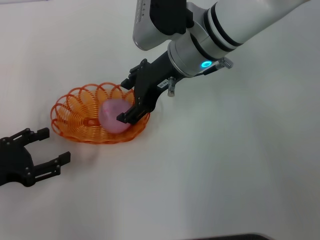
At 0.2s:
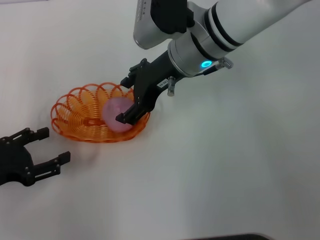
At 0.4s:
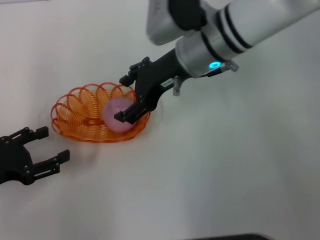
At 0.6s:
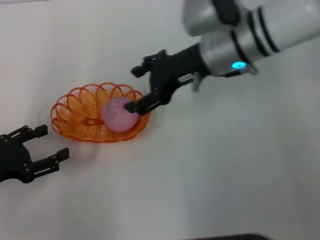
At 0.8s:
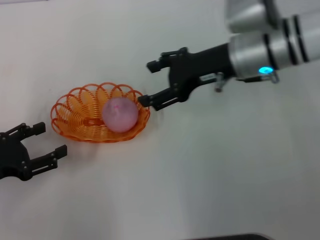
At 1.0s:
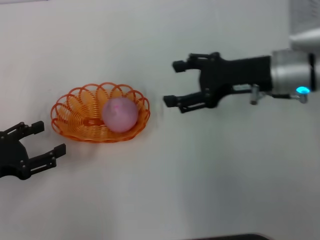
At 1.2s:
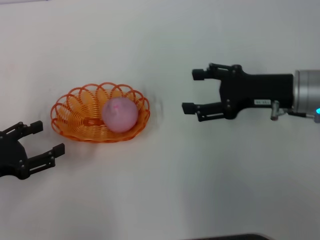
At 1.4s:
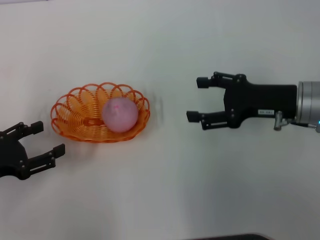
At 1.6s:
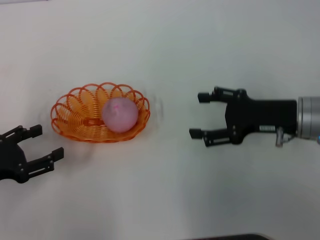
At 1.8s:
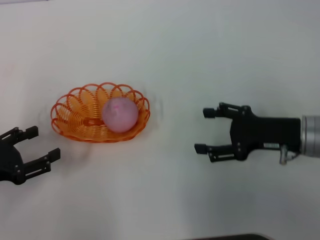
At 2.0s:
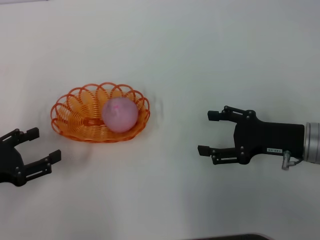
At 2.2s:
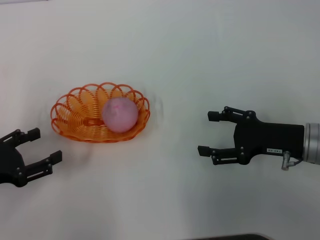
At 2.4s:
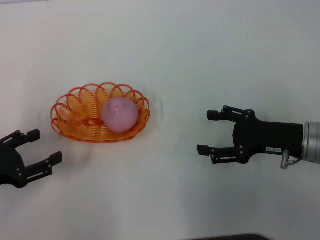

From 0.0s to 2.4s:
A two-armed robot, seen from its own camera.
From 0.0s to 1.2s: The right gripper travels to the right and backward by roughly 20 cm.
From 1.2s to 2.4s: The right gripper goes approximately 10 cm downward and backward.

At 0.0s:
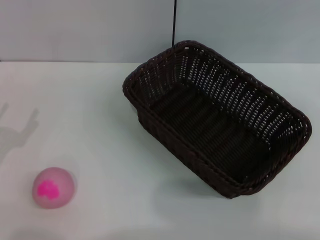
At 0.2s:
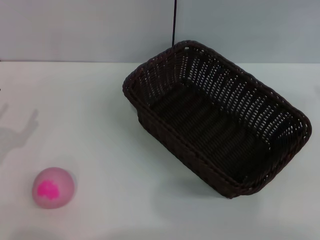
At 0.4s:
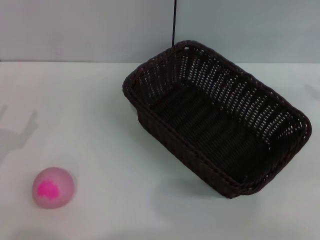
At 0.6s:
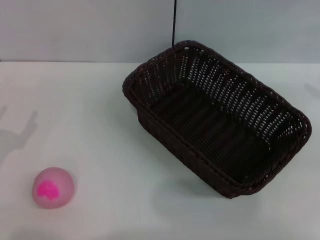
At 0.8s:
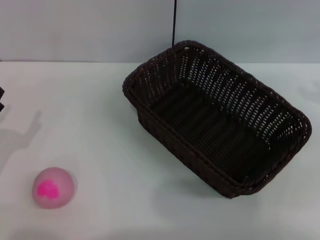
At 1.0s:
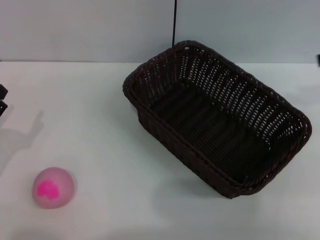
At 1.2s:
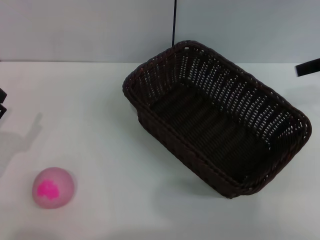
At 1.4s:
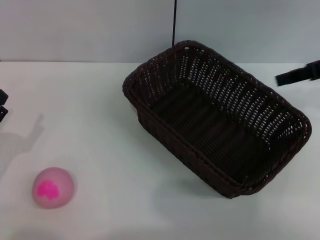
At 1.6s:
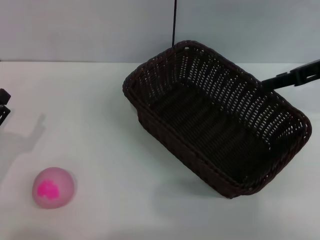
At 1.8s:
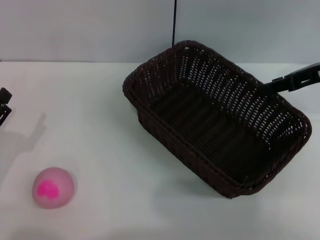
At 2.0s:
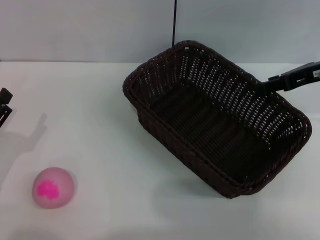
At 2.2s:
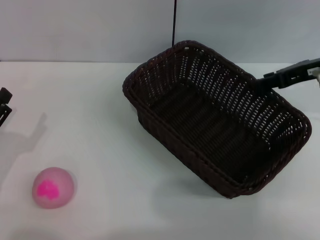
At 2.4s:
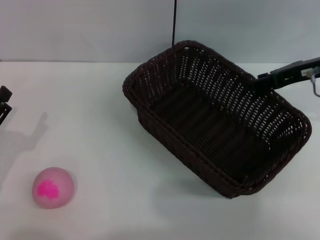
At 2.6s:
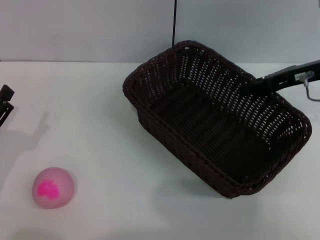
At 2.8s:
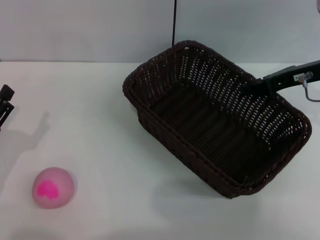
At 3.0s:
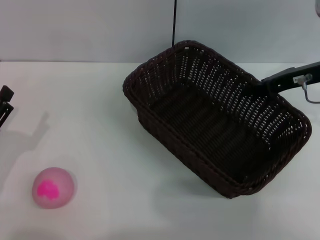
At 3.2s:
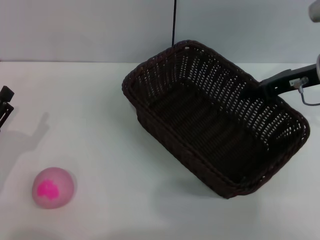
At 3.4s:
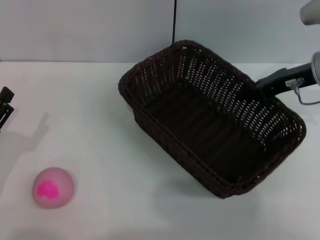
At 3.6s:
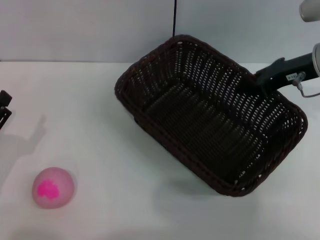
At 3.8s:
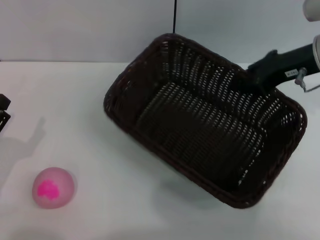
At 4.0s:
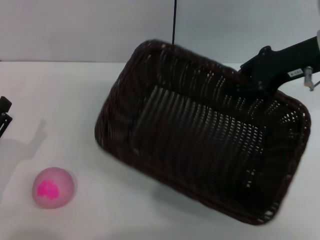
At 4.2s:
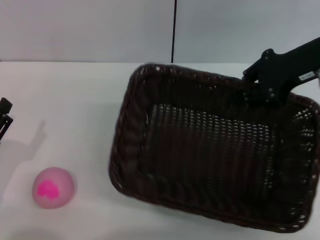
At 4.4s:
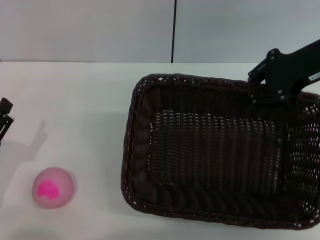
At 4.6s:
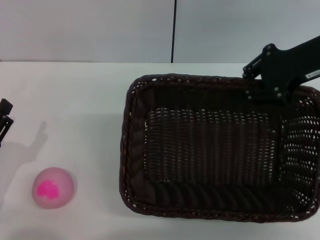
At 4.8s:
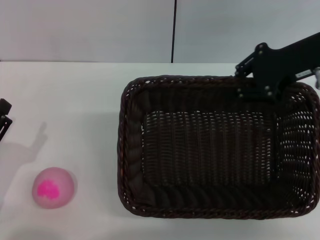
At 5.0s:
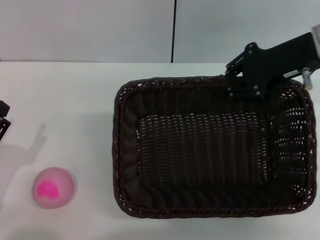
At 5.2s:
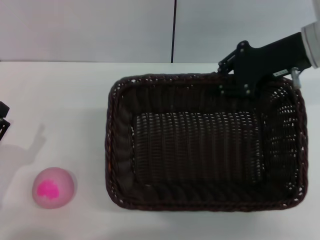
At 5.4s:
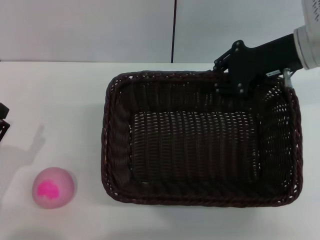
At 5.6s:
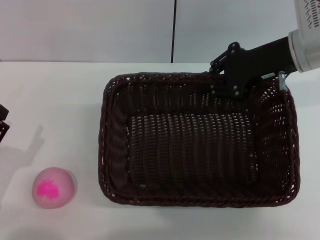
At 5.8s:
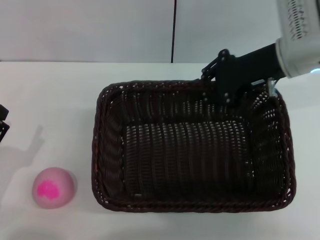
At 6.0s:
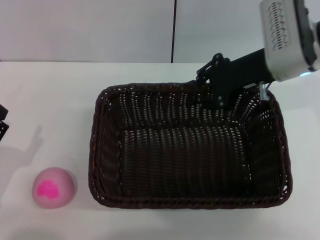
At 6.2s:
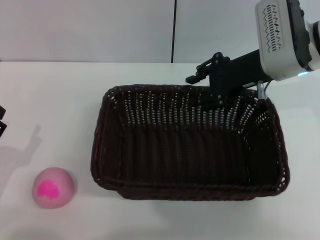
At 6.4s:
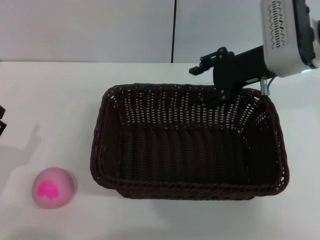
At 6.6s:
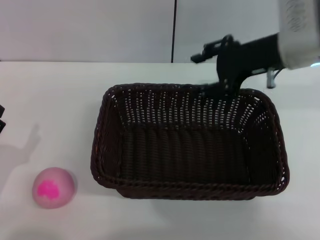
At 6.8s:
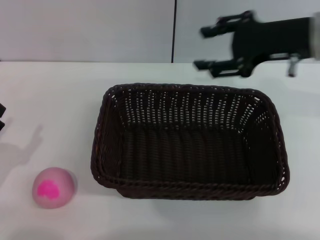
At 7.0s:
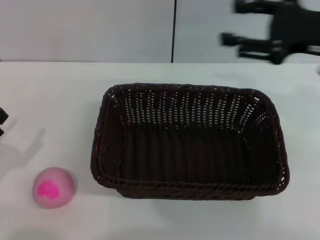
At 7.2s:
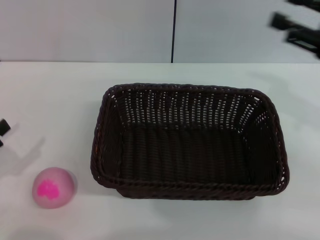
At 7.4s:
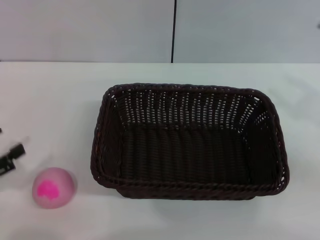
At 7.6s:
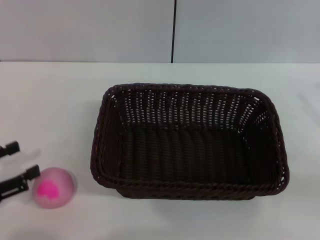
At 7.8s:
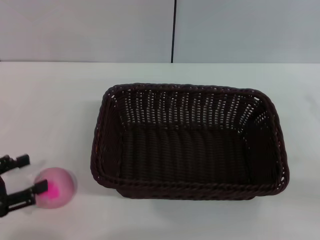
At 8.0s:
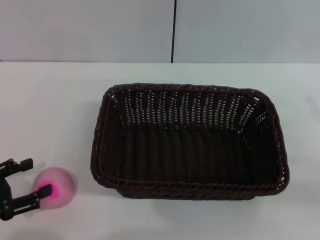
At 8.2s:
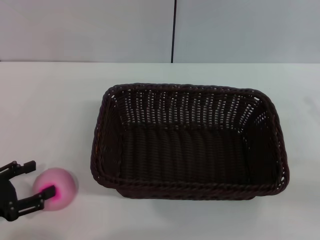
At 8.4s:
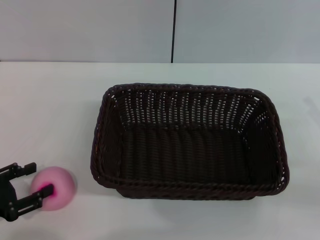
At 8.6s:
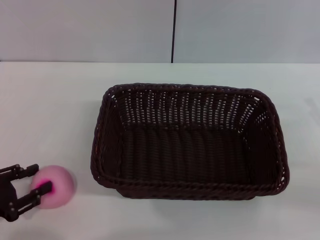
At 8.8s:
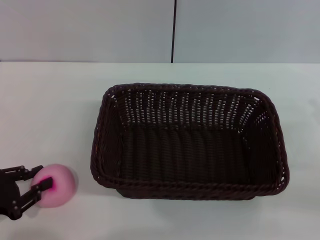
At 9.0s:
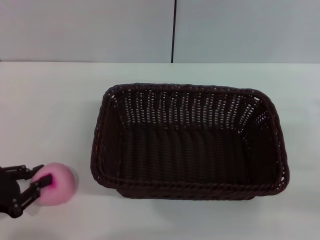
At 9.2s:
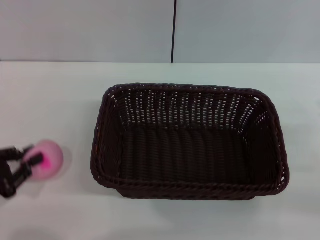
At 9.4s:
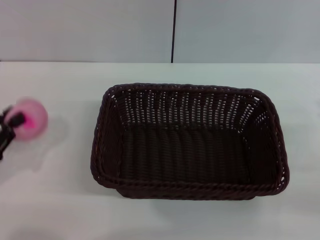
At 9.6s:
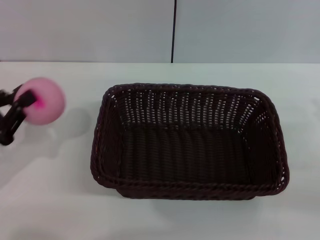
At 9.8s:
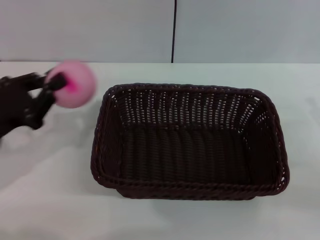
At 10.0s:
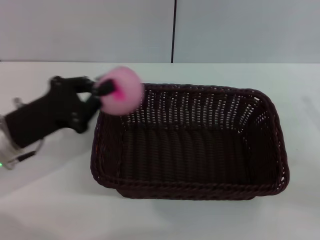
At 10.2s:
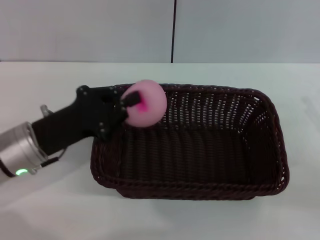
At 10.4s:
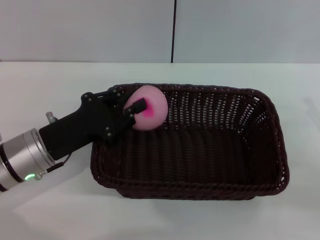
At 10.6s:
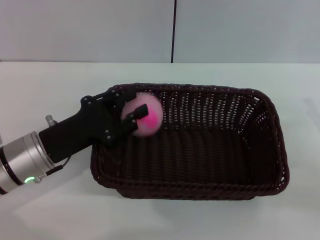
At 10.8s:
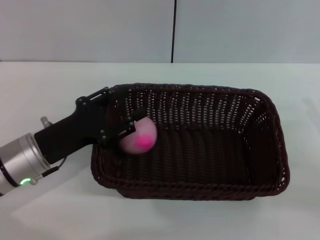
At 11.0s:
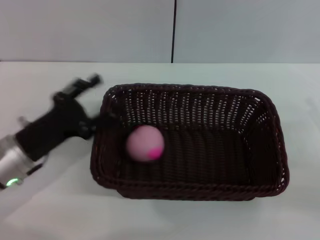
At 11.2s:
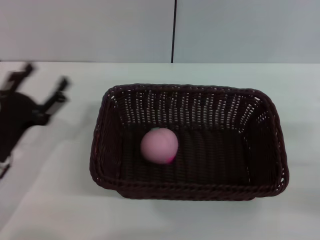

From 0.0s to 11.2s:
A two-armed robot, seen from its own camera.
Step, from 0.0s to 3.6s: Pick up the dark basket with the right gripper.
Step, from 3.8s to 6.4s: Place the dark basket in the center of view with the right gripper.
Step, from 6.6s to 9.2s: Pick up the peach with the left gripper.
Step, from 9.6s to 10.8s: Place the peach into the basket with the left gripper.
From 0.0s to 1.6s: The right gripper is displaced to the left, forward and downward by about 20 cm.
From 1.6s to 3.2s: The right gripper moves about 5 cm, and closes its fingers.
From 3.2s to 4.8s: The right gripper shifts roughly 5 cm upward.
From 4.8s to 6.4s: The right gripper is displaced to the left by about 5 cm, and opens its fingers.
From 6.4s to 8.0s: The left gripper changes place by roughly 5 cm; the right gripper moves to the right and backward, about 25 cm, and opens up.
From 8.0s to 9.6s: The left gripper shifts by roughly 5 cm, and closes its fingers.
From 9.6s to 11.2s: The left gripper travels to the right by some 5 cm, and opens.

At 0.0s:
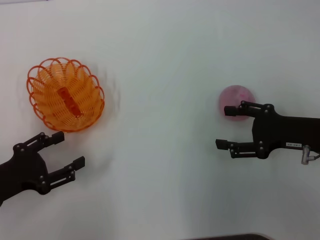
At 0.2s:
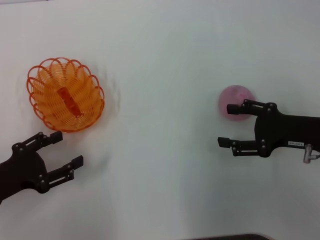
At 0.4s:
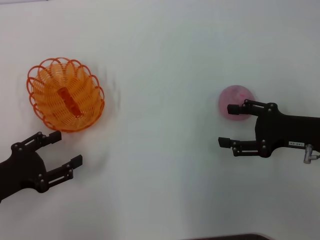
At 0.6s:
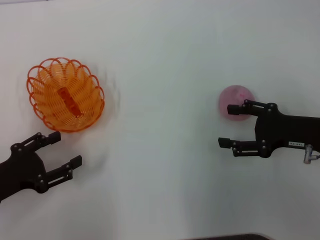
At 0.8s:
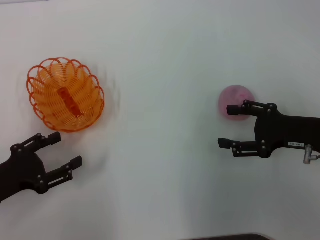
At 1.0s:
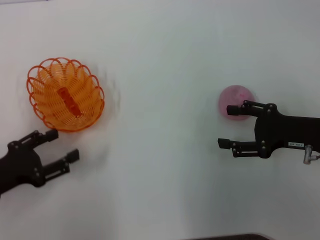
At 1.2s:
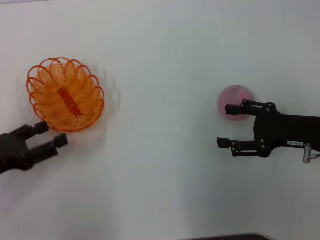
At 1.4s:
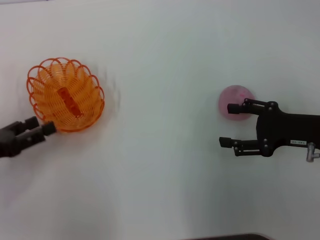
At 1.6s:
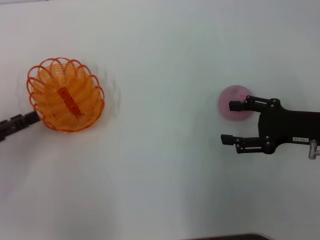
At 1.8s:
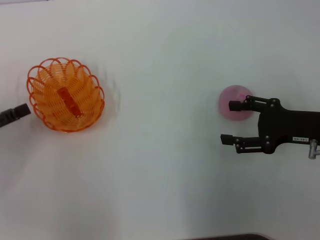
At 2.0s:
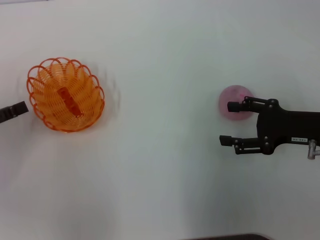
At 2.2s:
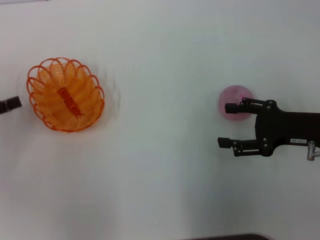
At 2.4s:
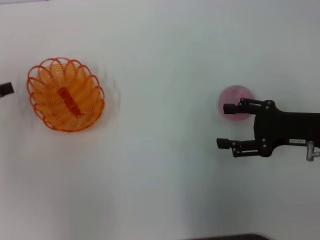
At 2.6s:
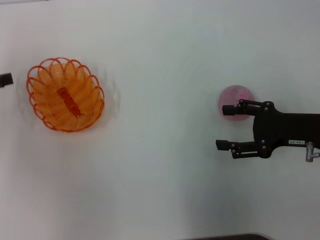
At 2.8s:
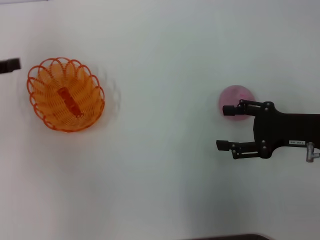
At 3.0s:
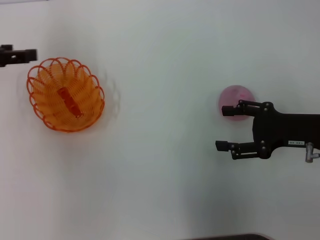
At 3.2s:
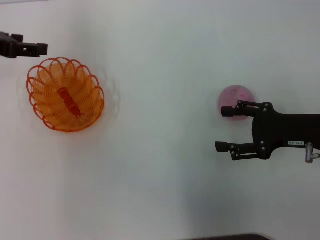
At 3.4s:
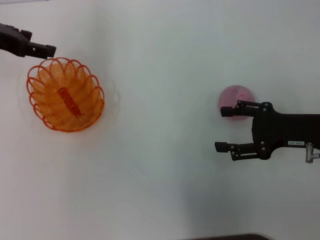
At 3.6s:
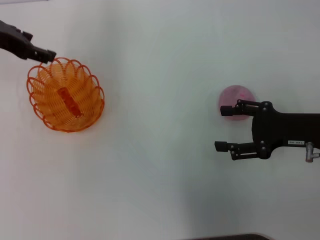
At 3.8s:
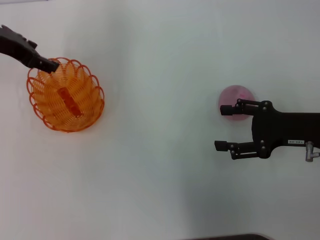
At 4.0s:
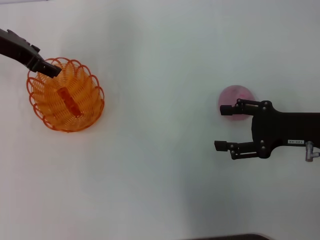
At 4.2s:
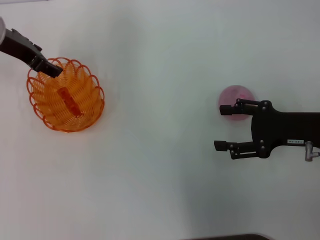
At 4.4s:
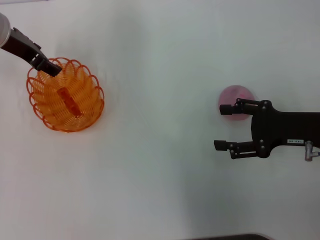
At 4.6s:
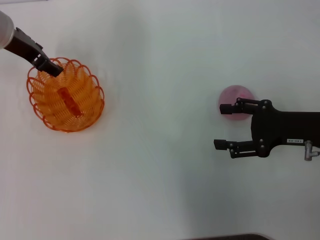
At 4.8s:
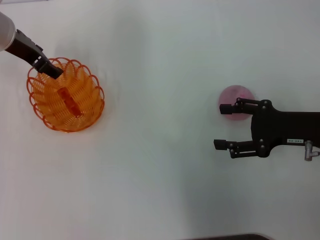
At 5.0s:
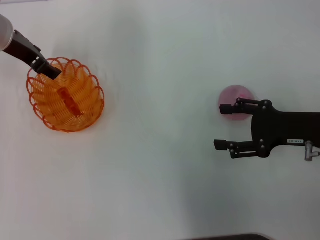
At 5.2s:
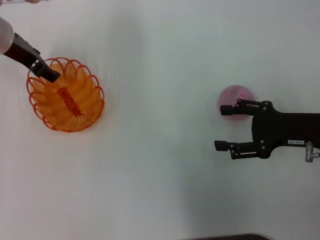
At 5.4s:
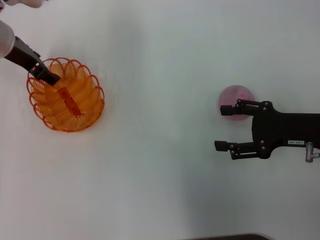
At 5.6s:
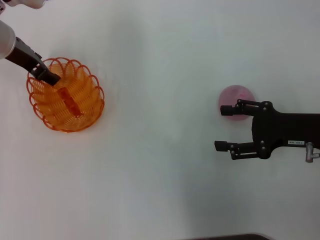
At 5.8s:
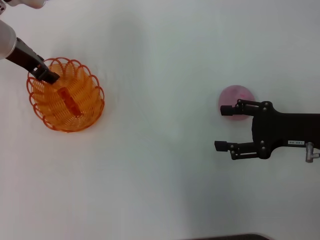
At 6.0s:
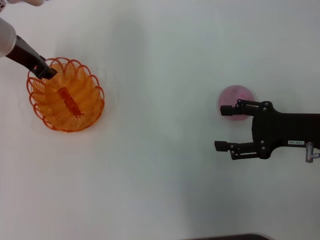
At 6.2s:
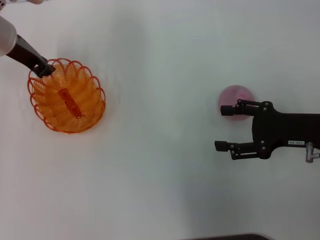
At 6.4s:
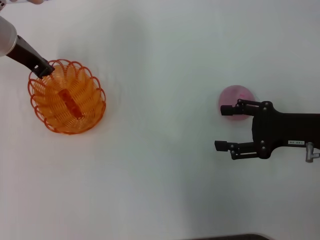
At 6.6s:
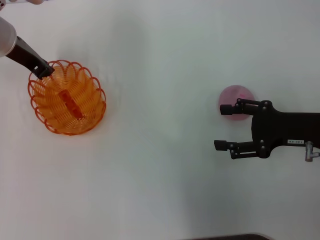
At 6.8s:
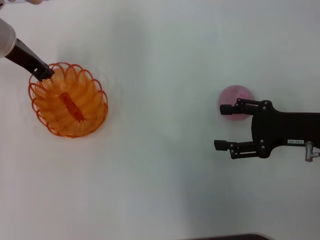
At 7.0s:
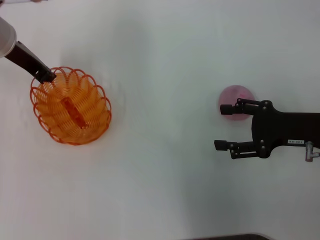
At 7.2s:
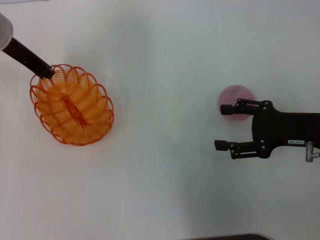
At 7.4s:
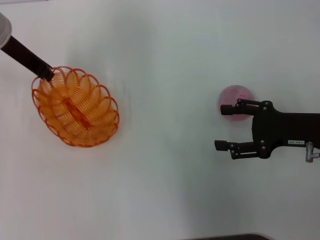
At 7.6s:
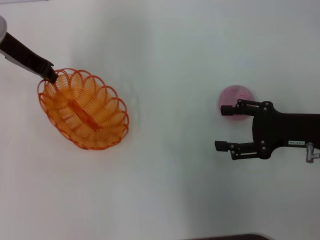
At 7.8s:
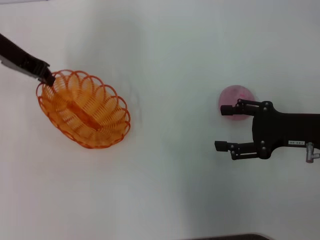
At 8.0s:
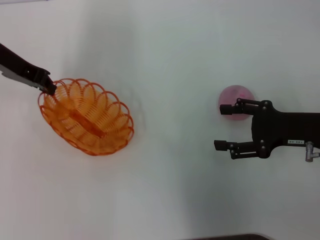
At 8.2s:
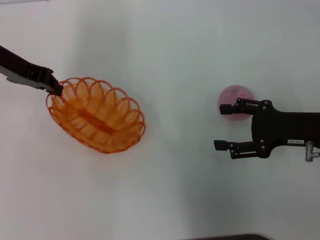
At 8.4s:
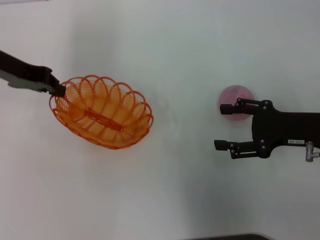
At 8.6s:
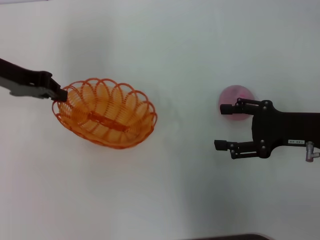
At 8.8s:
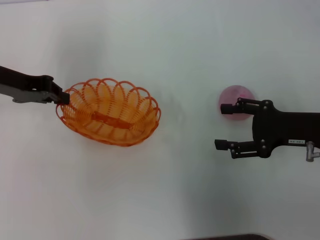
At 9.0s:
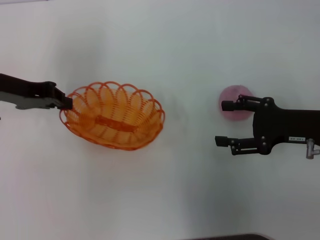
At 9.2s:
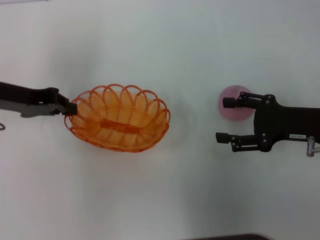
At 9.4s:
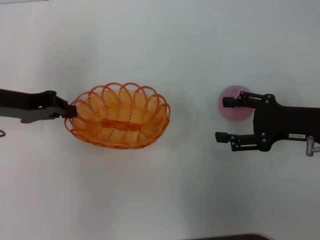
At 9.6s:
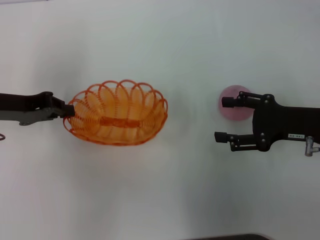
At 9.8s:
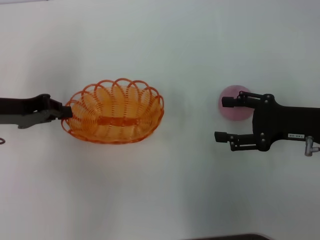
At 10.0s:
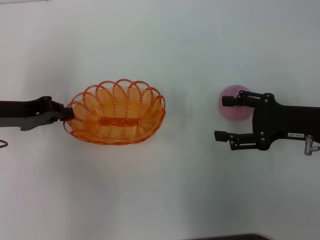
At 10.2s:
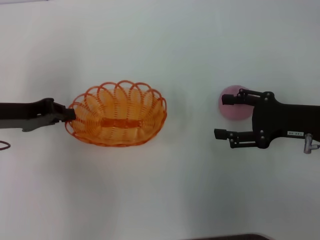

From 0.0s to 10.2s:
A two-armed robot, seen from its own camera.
Step, from 0.0s to 7.8s: Pick up the basket with the left gripper.
From 0.0s to 1.4s: The left gripper ends up roughly 5 cm from where it was.
From 1.4s to 3.0s: The left gripper moves forward and upward, roughly 15 cm.
From 3.0s to 4.4s: The left gripper moves to the right and forward, approximately 10 cm.
From 4.4s to 5.8s: There are only small adjustments of the grippers.
From 5.8s to 7.2s: The left gripper closes up.
From 7.2s to 8.8s: The left gripper is displaced backward by approximately 5 cm.
From 8.8s to 10.2s: The left gripper moves backward, about 5 cm.
